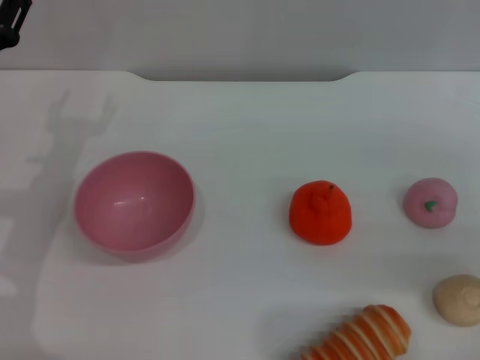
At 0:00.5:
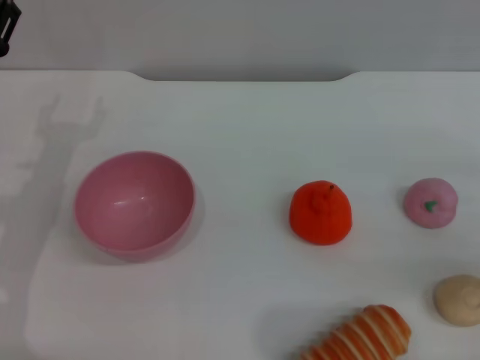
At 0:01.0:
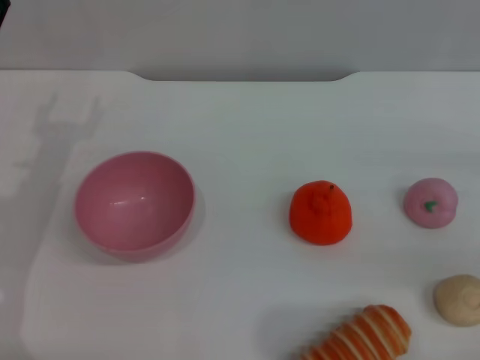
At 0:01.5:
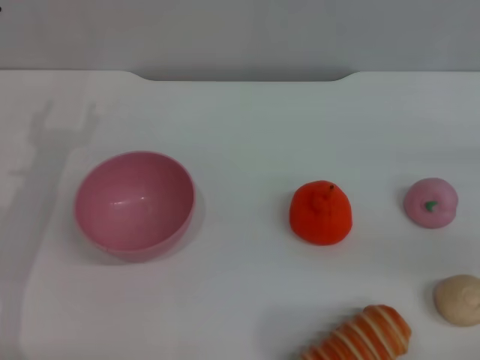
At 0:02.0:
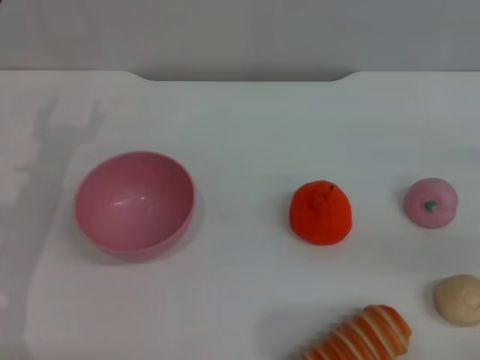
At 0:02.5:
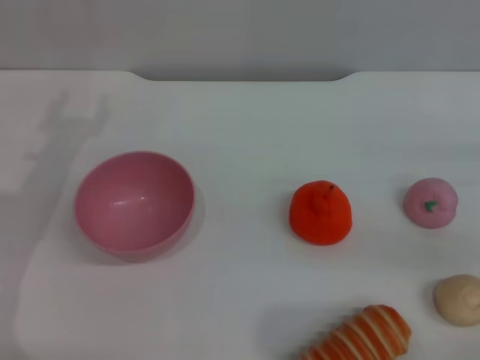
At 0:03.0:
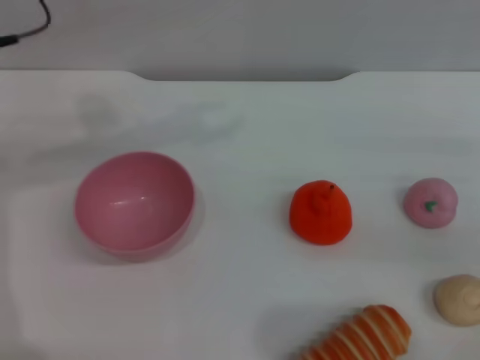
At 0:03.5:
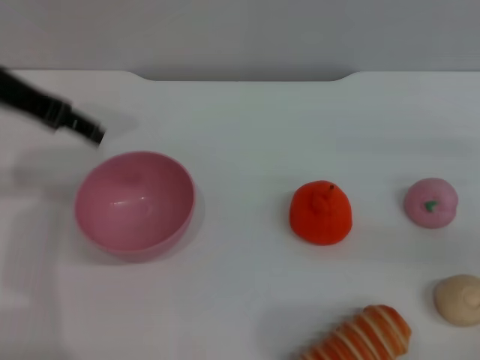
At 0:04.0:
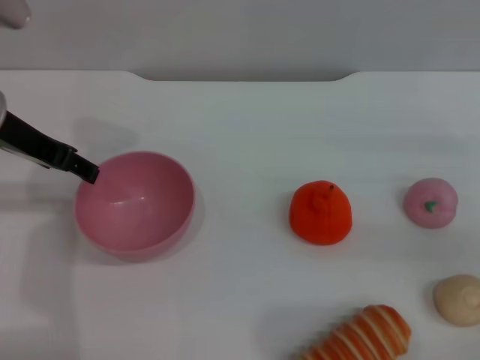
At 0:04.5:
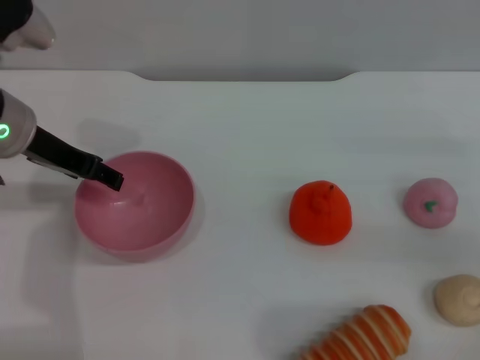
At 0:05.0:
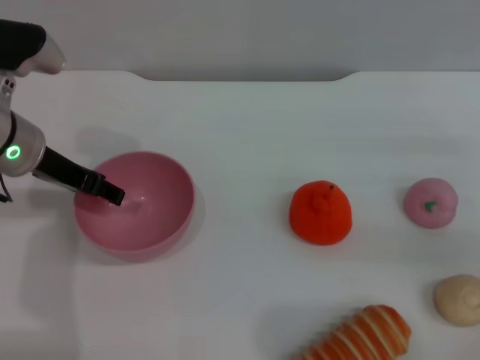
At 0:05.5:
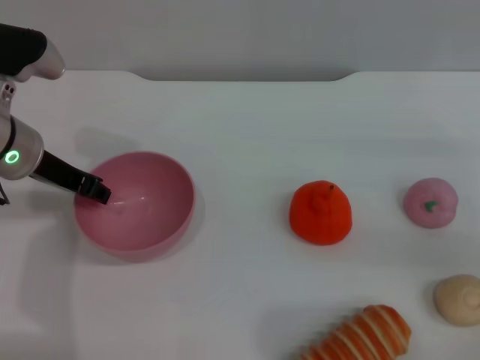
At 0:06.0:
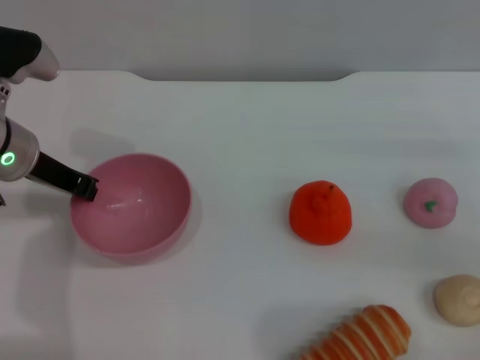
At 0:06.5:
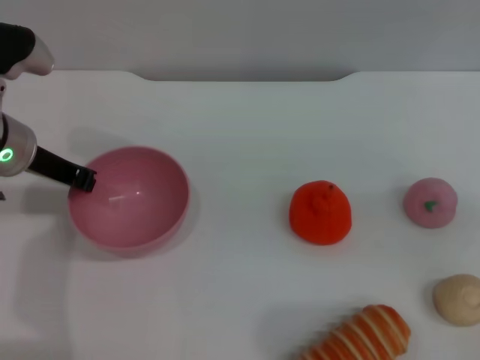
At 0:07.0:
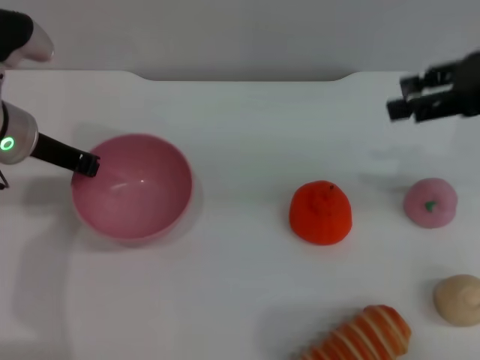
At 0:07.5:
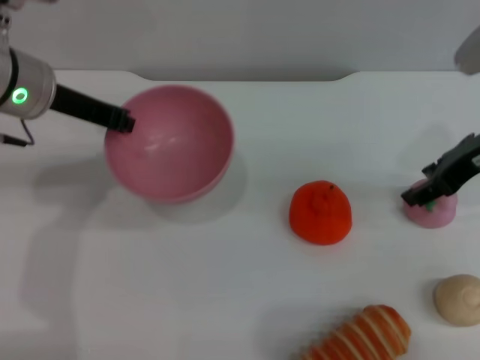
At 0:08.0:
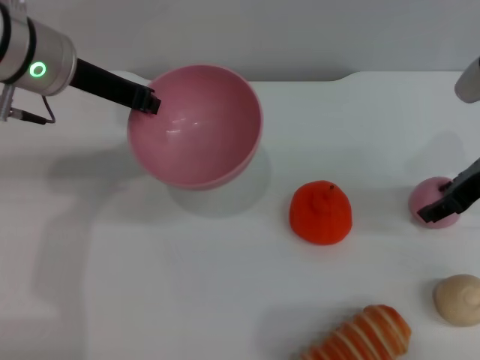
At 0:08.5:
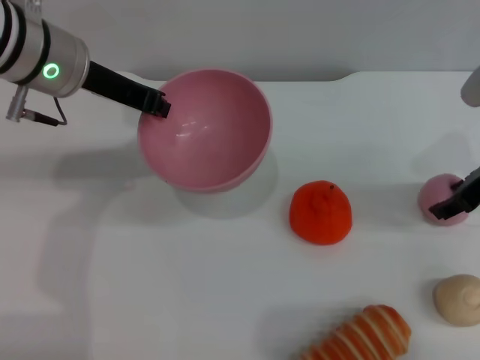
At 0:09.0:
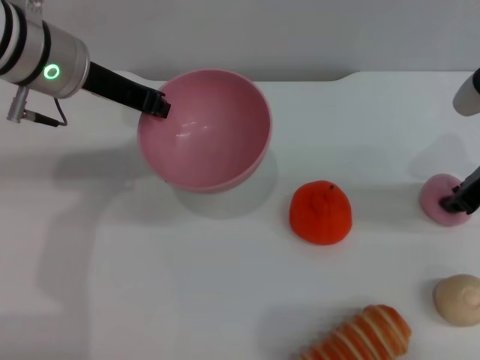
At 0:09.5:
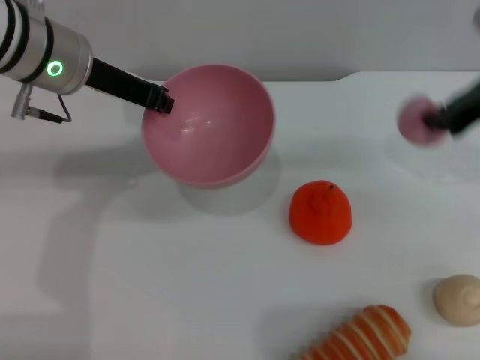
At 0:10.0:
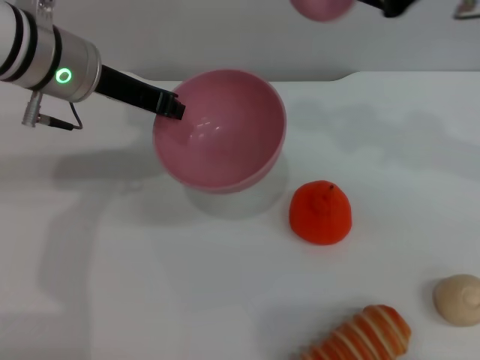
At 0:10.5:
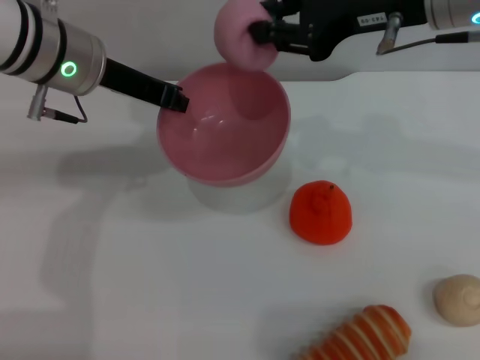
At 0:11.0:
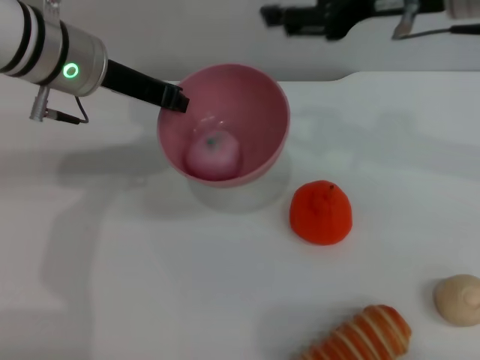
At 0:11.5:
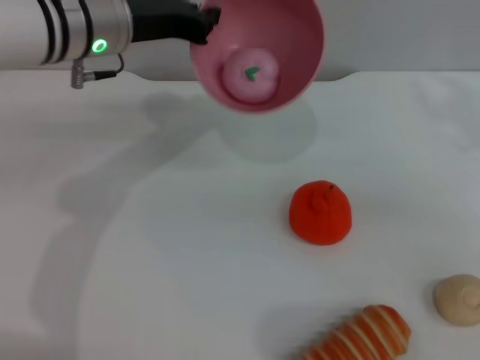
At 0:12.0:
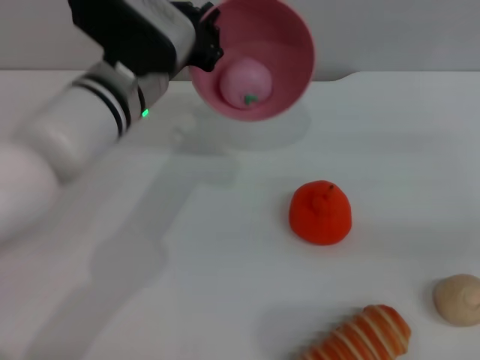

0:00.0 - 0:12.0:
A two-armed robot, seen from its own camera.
Task of the whole recording: put the peach into the pink bowl and pour it out repeatedly.
Step, 0:00.0 - 0:07.5: Pick up the bowl with the left gripper.
Step, 0:08.0 - 0:09.0: Pick up the peach with the right gripper.
Step, 0:09.5 - 0:10.5: Place the peach into the bowl.
0:02.0 - 0:04.0: The left gripper travels upward by roughly 10 cm.
0:04.0 - 0:06.0: The left gripper heads downward, covering approximately 5 cm, and closes.
0:06.0 - 0:08.0: The left gripper travels upward by some 10 cm. The right gripper travels to the left and forward by approximately 10 cm, and goes upward and returns, about 15 cm each way.
0:08.0 - 0:10.0: The right gripper is displaced upward and to the left by approximately 15 cm, and closes up.
0:10.0 - 0:12.0: The right gripper goes roughly 20 cm to the right and downward, and opens; the left gripper travels to the right and downward by some 10 cm.

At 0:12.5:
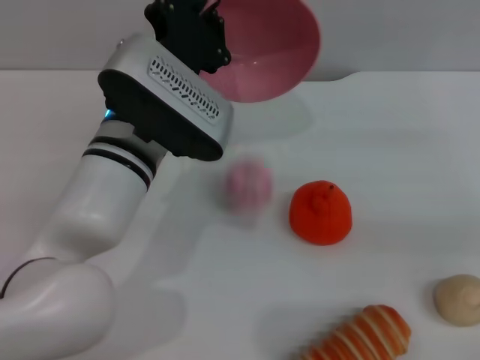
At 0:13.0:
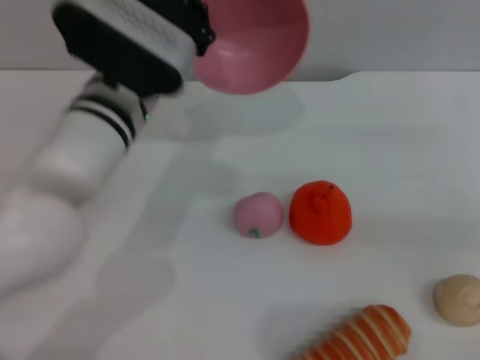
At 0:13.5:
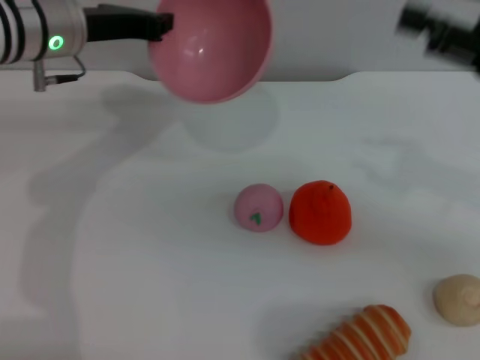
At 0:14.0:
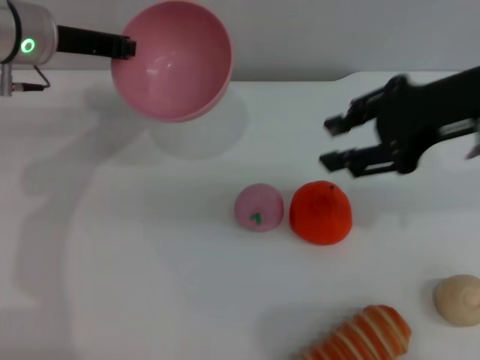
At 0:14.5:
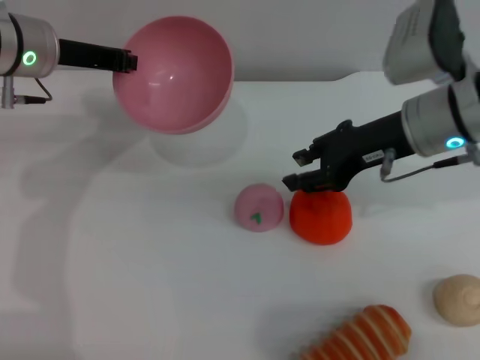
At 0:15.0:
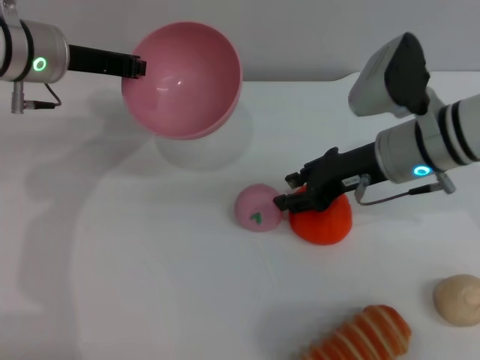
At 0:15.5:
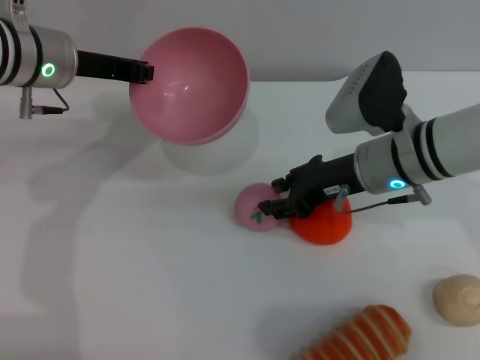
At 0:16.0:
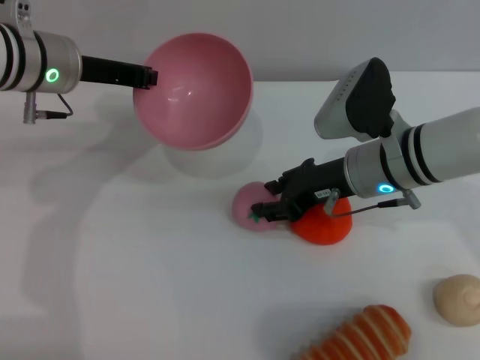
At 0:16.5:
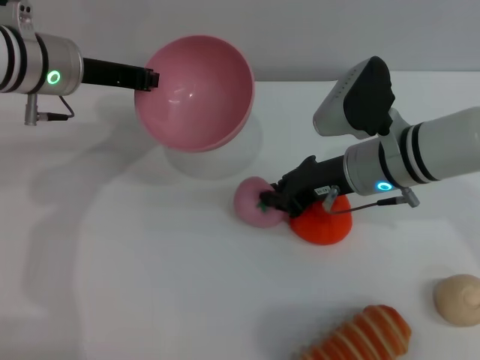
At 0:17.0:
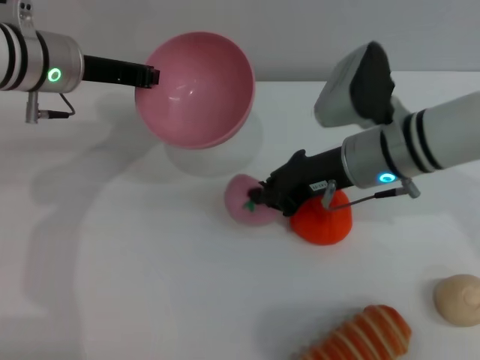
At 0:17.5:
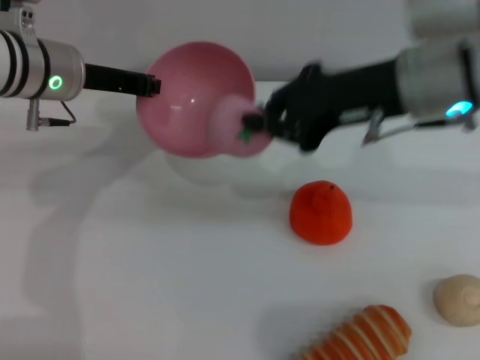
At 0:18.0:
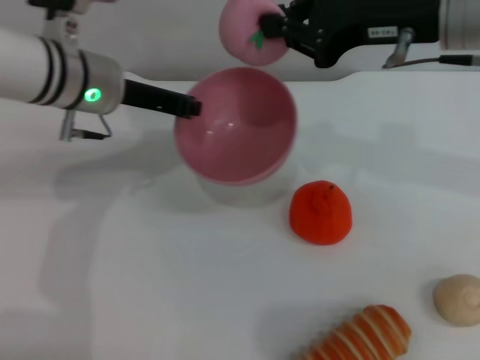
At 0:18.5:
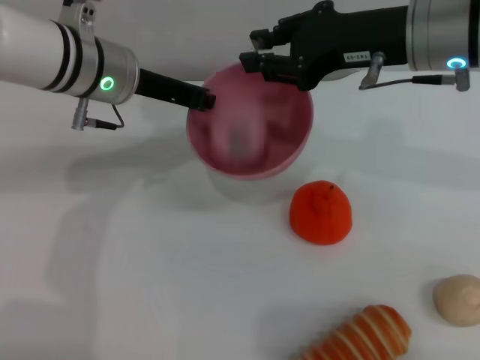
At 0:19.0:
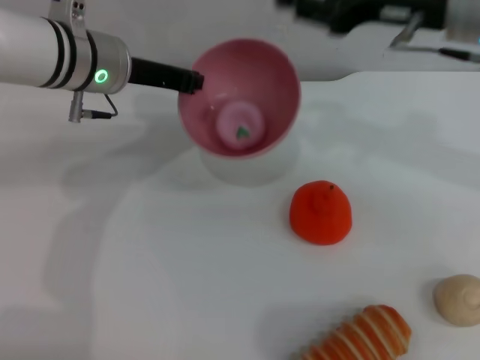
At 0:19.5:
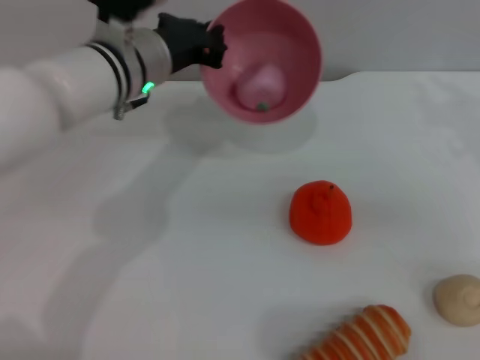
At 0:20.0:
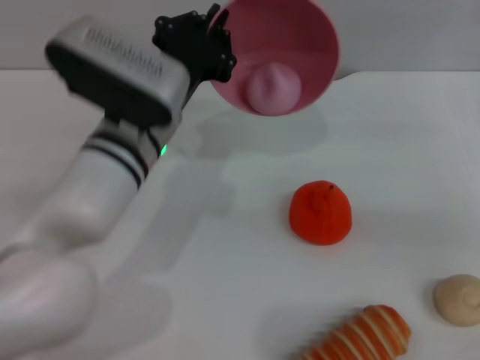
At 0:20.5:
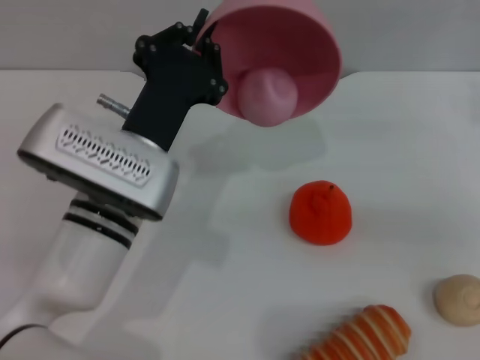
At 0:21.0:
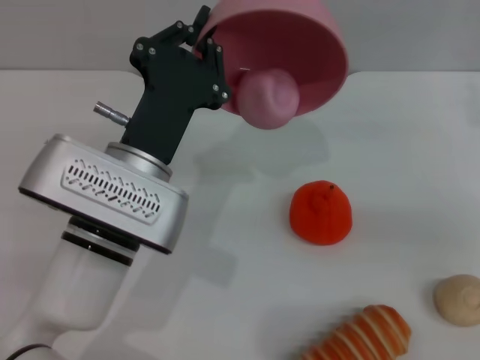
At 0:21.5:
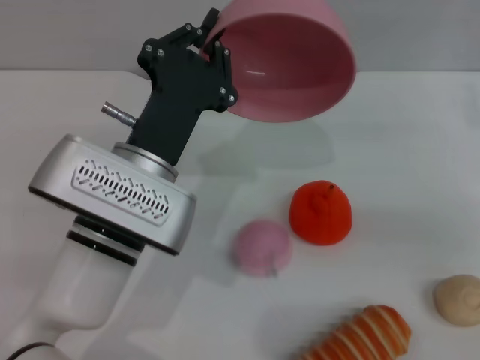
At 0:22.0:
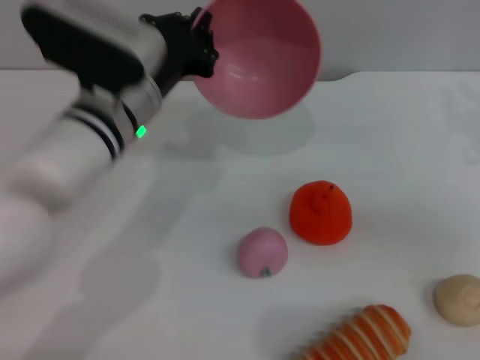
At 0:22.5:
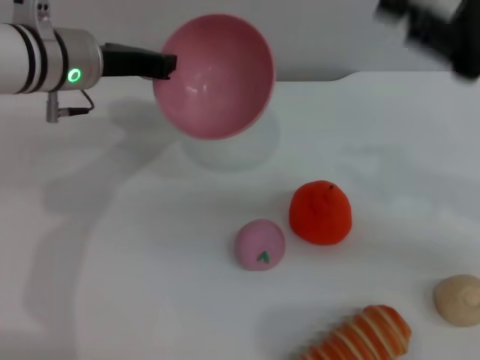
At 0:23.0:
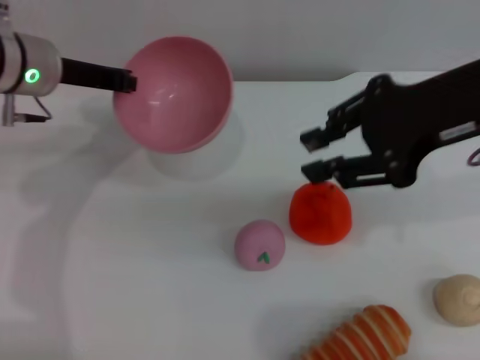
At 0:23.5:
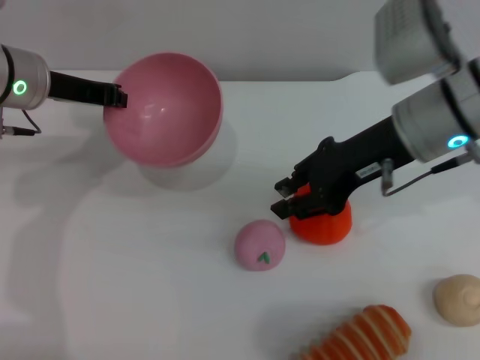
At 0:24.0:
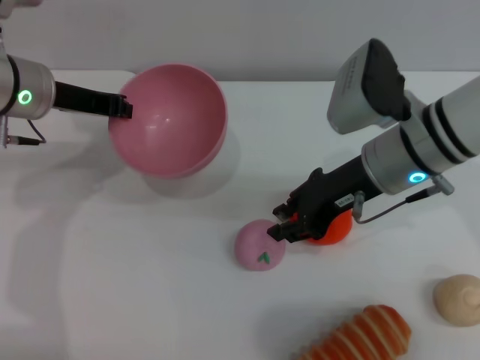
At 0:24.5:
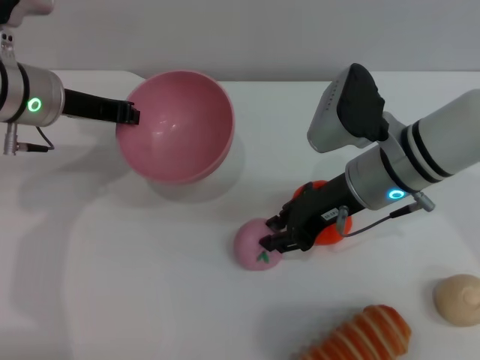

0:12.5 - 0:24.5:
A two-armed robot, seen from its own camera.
Task of the whole recording: put the peach into the pink bowl and pour it out repeatedly.
Step, 0:13.0 - 0:17.5: Pick up the peach with the right gripper.
Step, 0:18.0 - 0:18.5: Place the peach into the bowl.
Step, 0:19.0 - 0:21.5: Pour the peach out of bowl.
0:12.5 - 0:14.5: The right gripper is displaced to the left by approximately 20 cm; the left gripper moves to the left, forward and upward, some 15 cm.
0:14.5 - 0:16.5: The right gripper is displaced downward by approximately 5 cm.
0:16.5 - 0:18.5: The left gripper heads to the right, covering about 5 cm. The right gripper is displaced upward by approximately 15 cm.
0:18.5 - 0:20.5: The right gripper heads to the right and downward, covering roughly 20 cm, and opens its fingers; the left gripper travels backward and downward by about 15 cm.
0:20.5 - 0:22.5: The left gripper moves forward, to the left and upward, about 15 cm. The right gripper moves upward and to the left, about 10 cm.
0:22.5 - 0:24.5: The right gripper moves downward, to the left and forward, about 20 cm.

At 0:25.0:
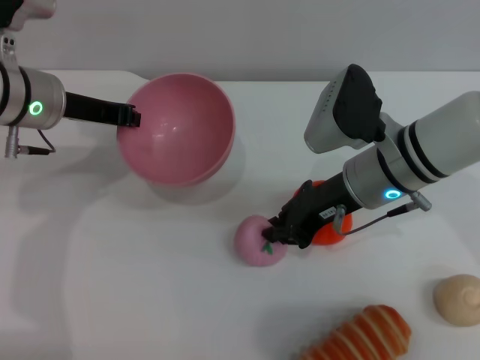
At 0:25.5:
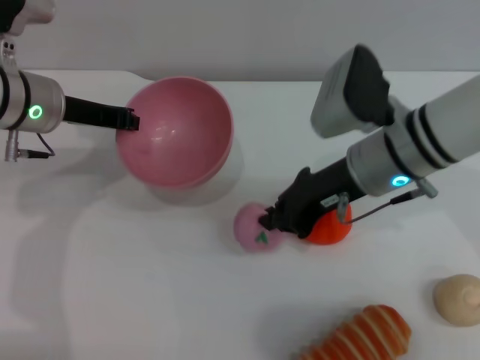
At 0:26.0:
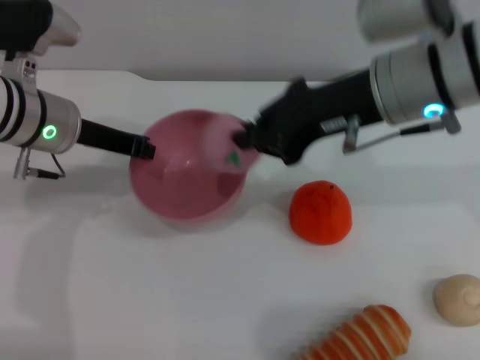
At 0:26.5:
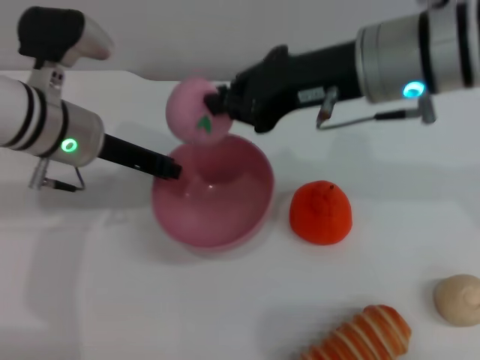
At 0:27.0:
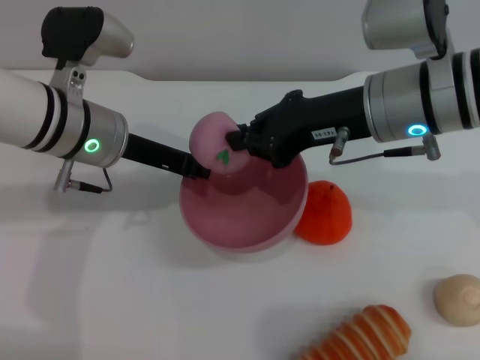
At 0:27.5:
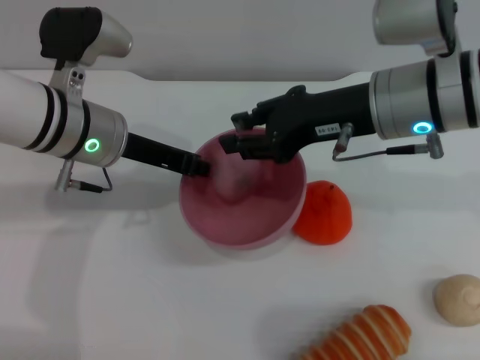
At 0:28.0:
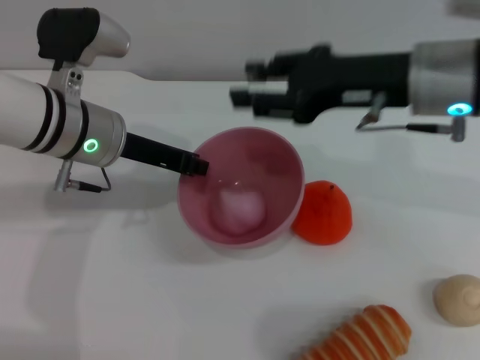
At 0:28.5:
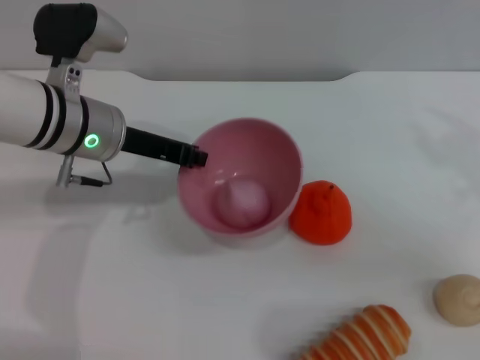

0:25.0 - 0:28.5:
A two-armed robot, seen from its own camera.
Task of the whole recording: put the peach into the pink bowl and pour it out repeatedly.
Step, 0:26.0 - 0:27.5: Place the peach into the bowl.
0:25.0 - 0:27.0: The right gripper heads upward, covering roughly 10 cm; the left gripper travels to the right by about 5 cm.
0:27.0 - 0:28.5: The right gripper travels to the right by about 15 cm, and opens up.
